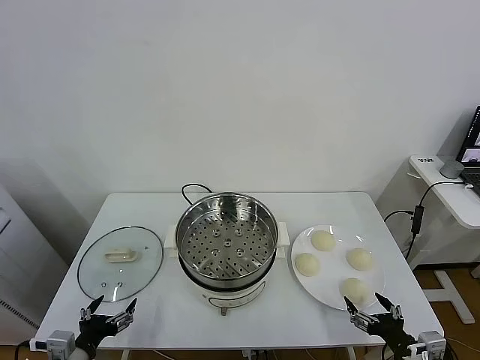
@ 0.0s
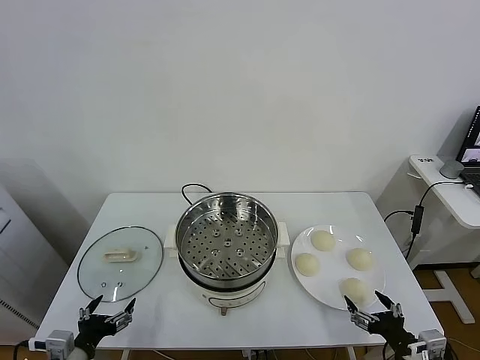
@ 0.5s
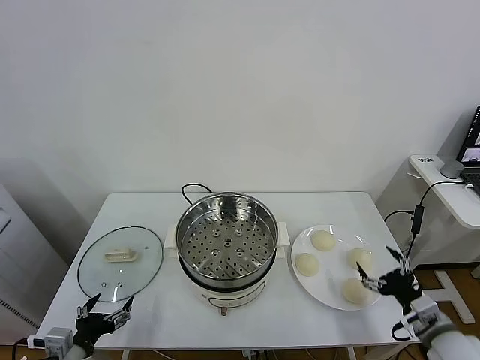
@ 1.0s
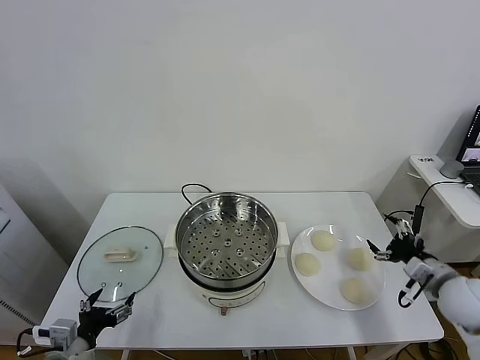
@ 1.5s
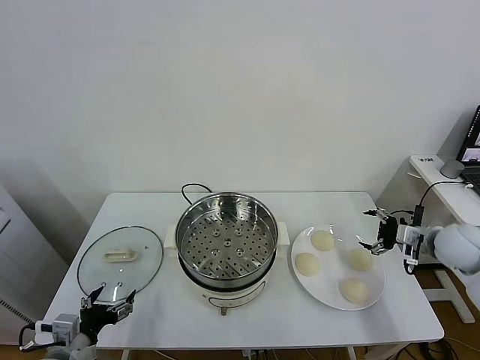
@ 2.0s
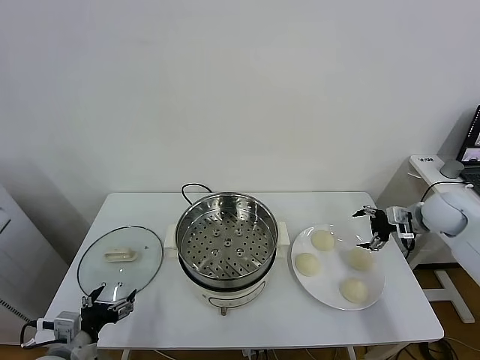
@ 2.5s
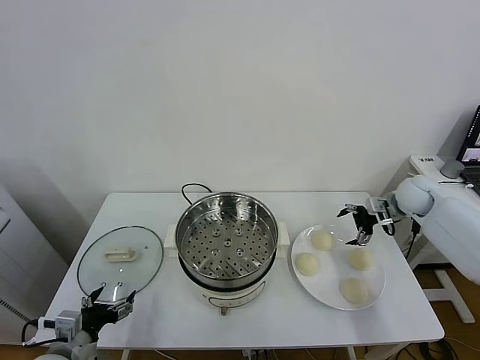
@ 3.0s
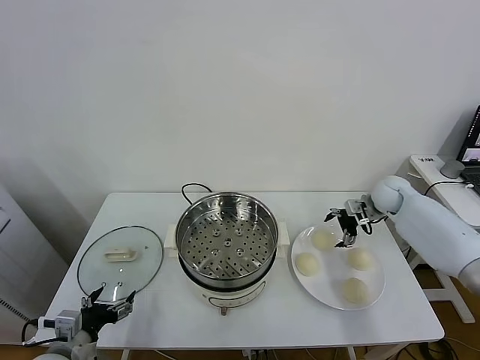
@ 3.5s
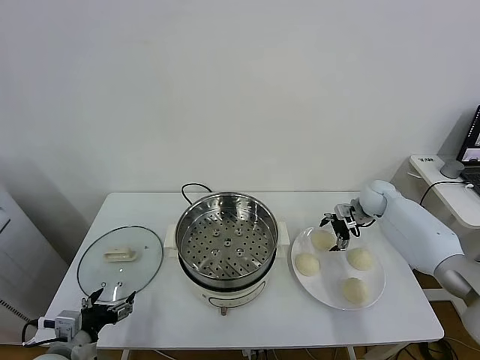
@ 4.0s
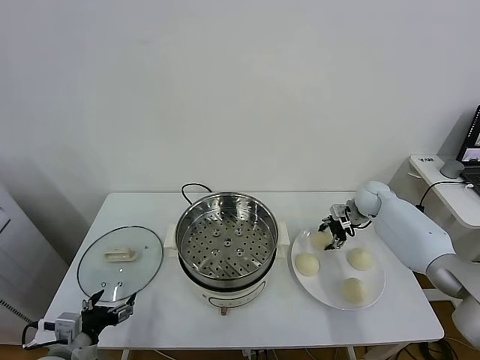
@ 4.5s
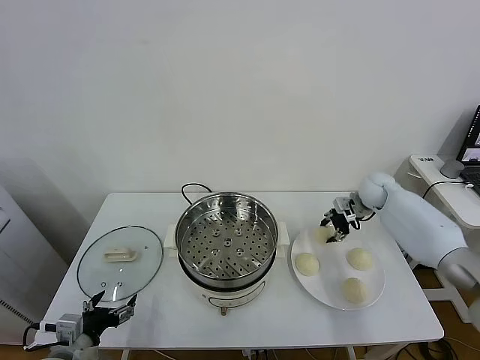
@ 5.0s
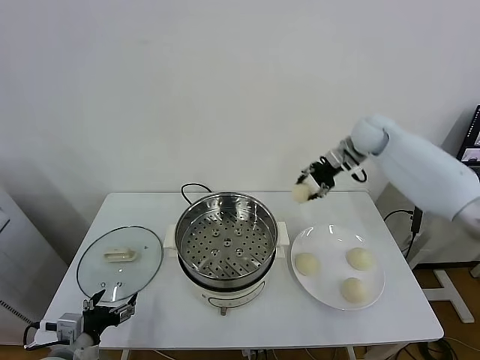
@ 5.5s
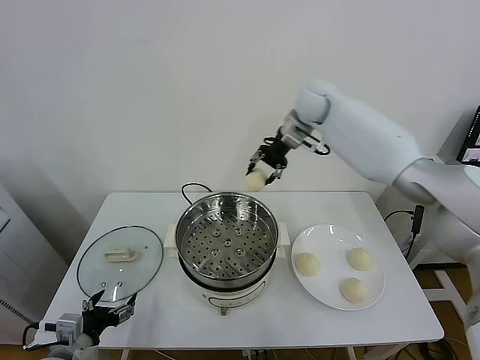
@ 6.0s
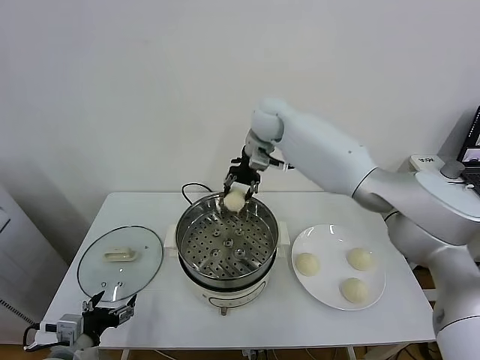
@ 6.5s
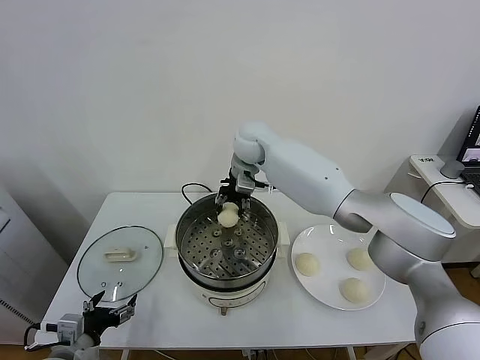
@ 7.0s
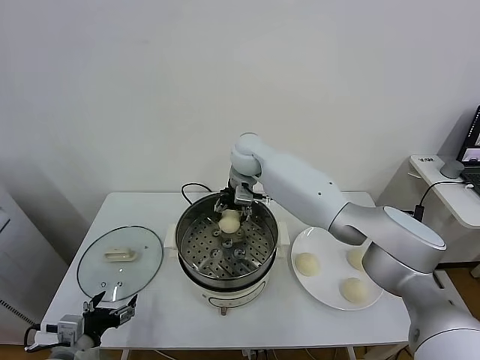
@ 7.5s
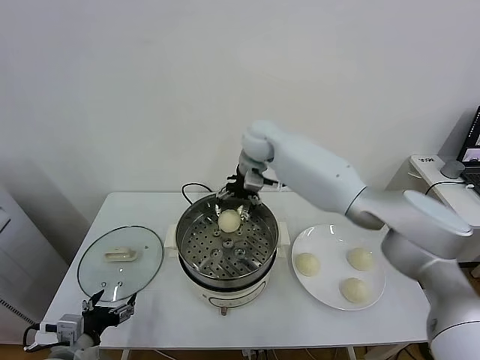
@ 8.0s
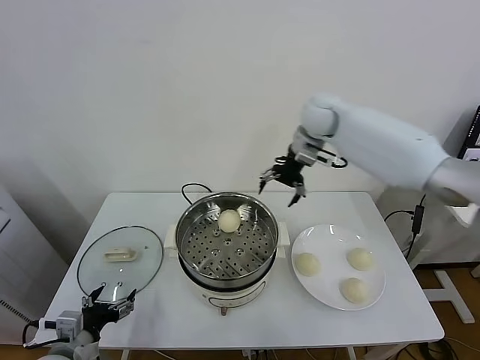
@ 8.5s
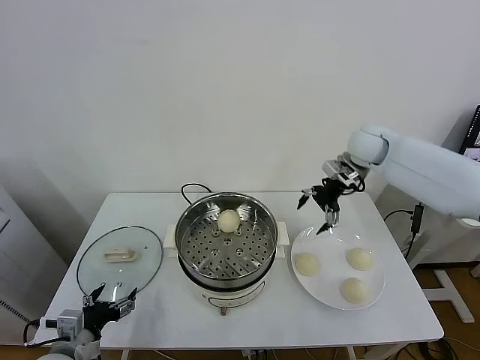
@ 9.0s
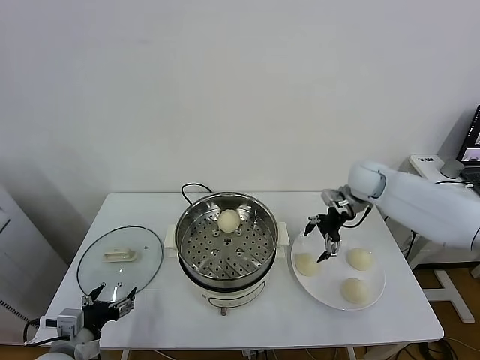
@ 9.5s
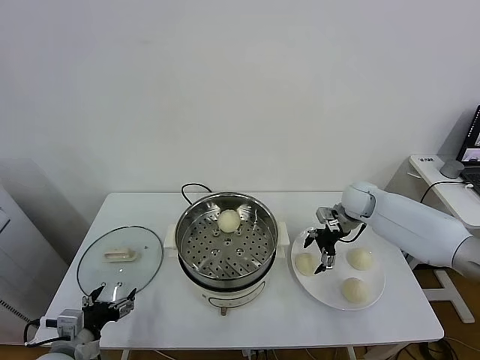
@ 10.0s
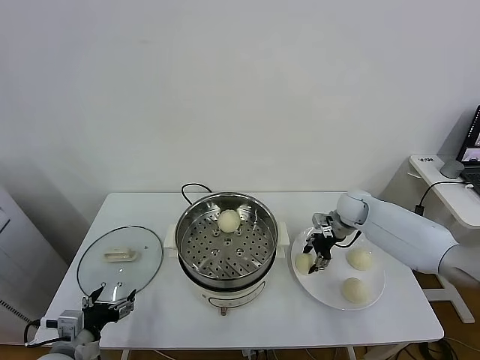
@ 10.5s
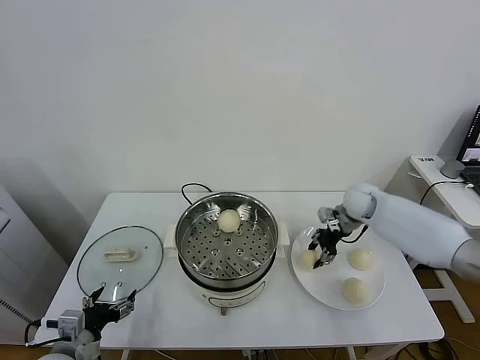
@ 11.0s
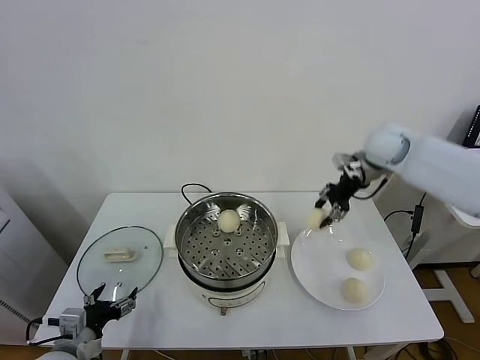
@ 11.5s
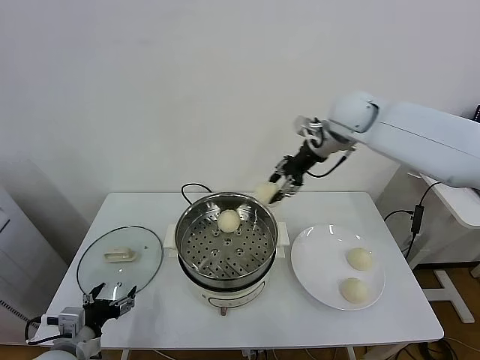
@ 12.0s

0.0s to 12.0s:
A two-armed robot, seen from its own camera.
Task of the whole recording: take steamed baozi put them in steamer.
Step, 0.0s to 4.5s: Grasp the baozi in the plate with right gripper.
Step, 5.0s to 7.5s: Place the baozi on the steamer with right gripper.
Step, 8.0s to 10.0s: Grasp the baozi in the plate with right gripper.
2.0s to 4.0s: The right gripper heads forward and to the left, covering about 20 cm.
4.0s to 6.0s: The right gripper heads upward and to the left, covering roughly 35 cm, and closes up.
6.0s to 8.0s: The right gripper shifts about 10 cm to the left and downward, and opens.
8.0s to 10.0s: The right gripper moves to the right and downward, some 30 cm.
10.0s to 12.0s: The right gripper moves upward and to the left, approximately 25 cm, and closes.

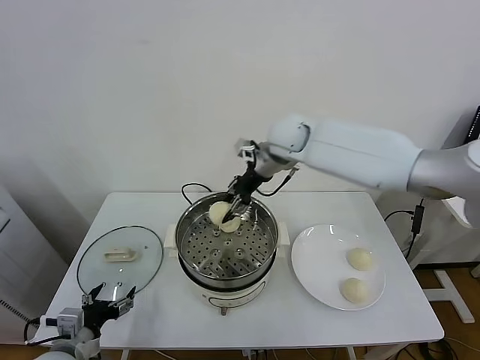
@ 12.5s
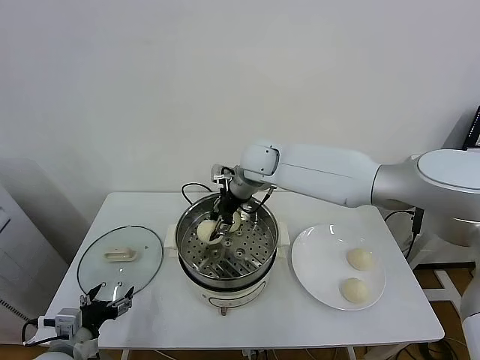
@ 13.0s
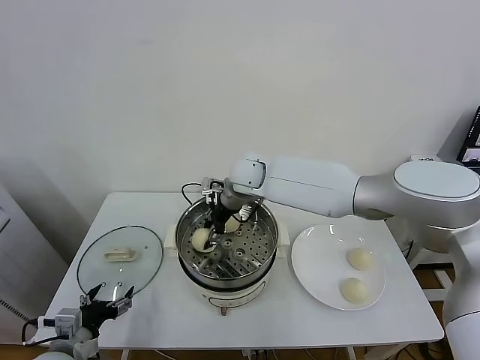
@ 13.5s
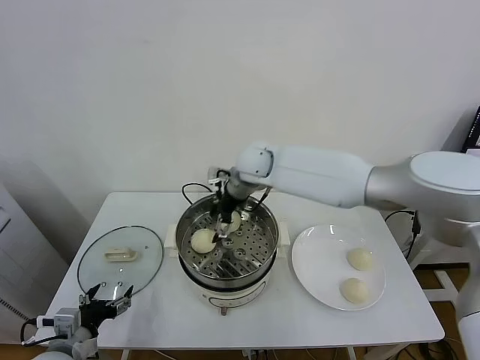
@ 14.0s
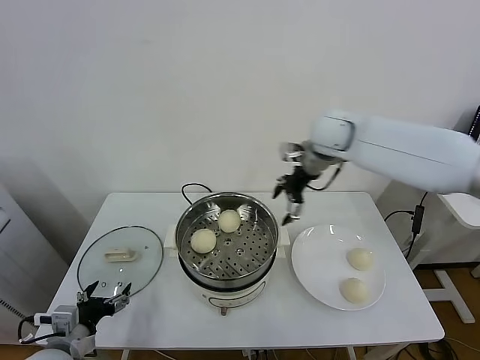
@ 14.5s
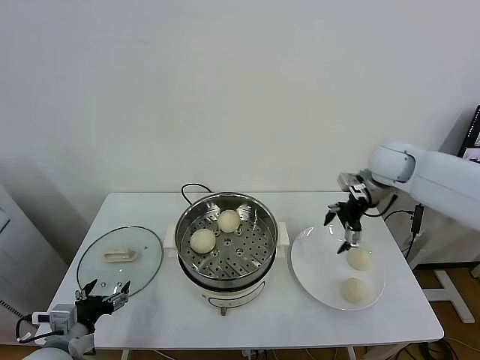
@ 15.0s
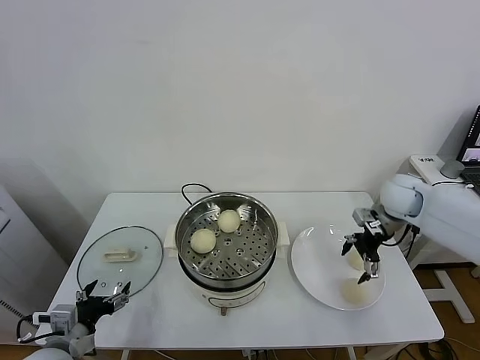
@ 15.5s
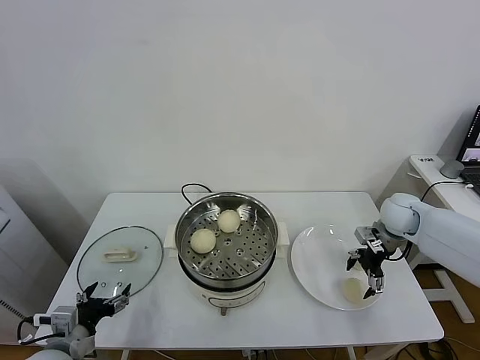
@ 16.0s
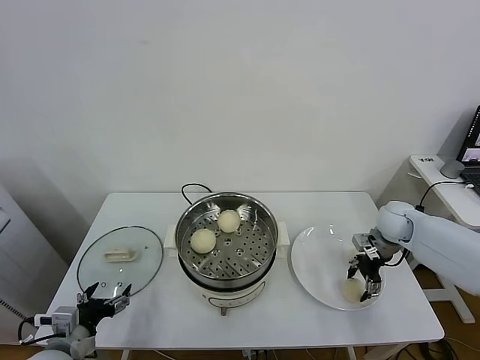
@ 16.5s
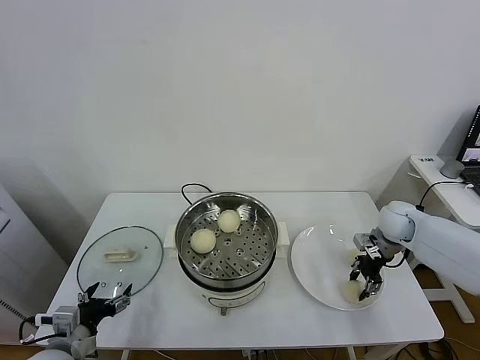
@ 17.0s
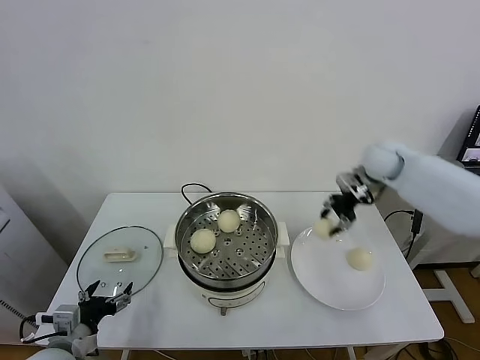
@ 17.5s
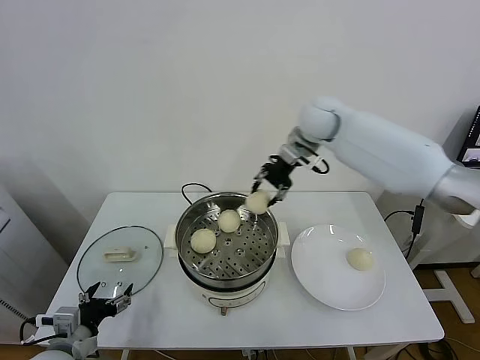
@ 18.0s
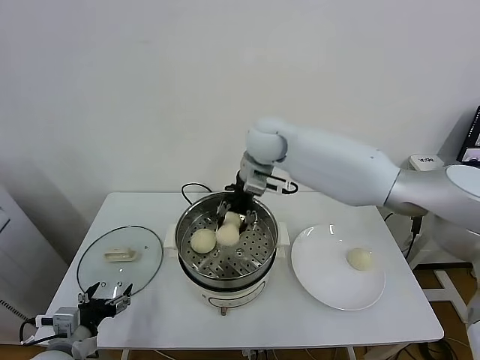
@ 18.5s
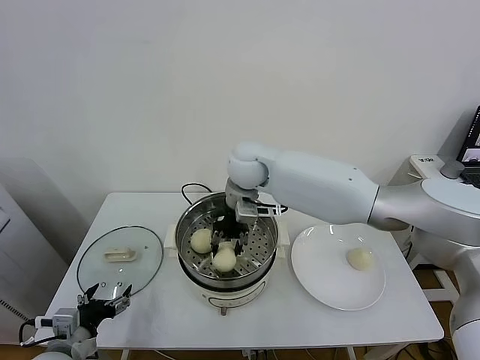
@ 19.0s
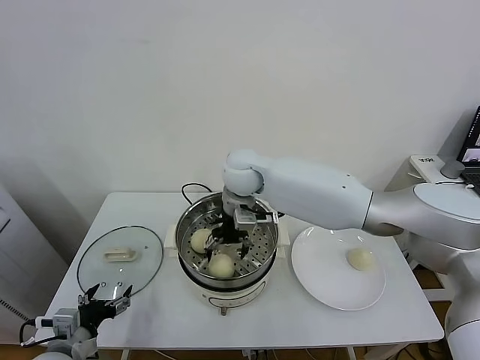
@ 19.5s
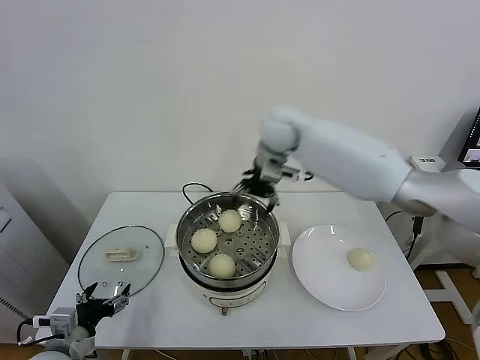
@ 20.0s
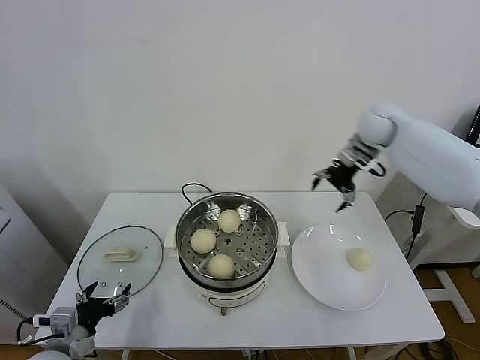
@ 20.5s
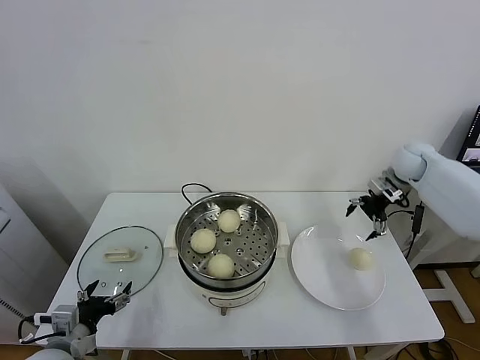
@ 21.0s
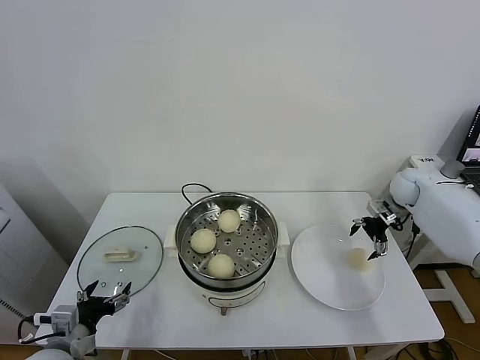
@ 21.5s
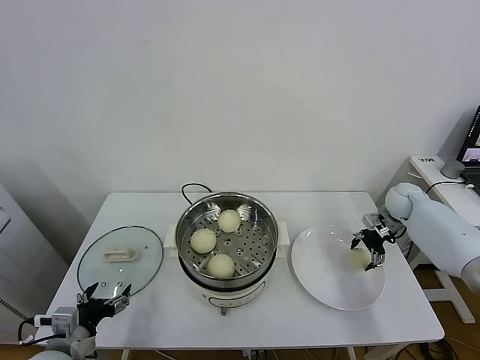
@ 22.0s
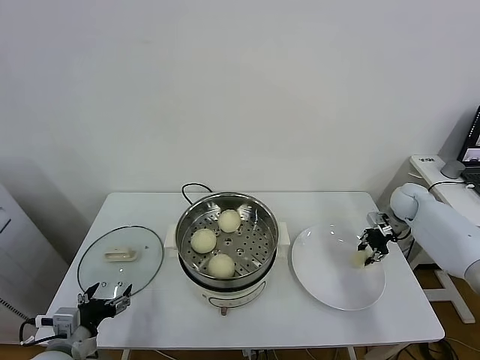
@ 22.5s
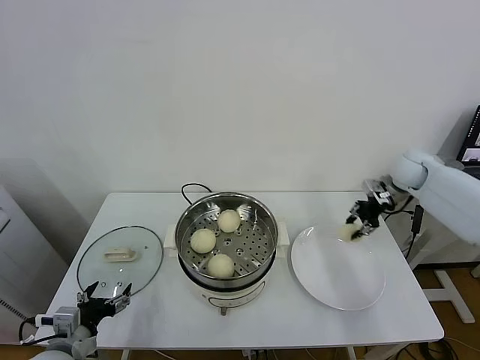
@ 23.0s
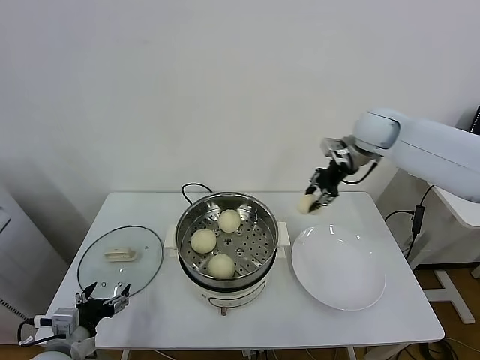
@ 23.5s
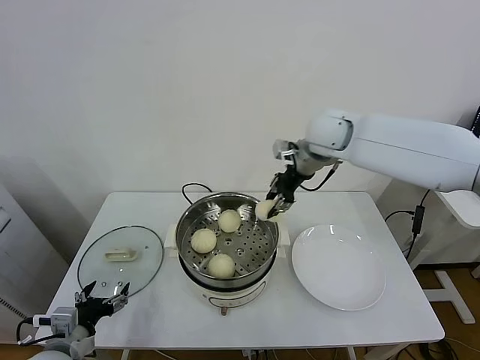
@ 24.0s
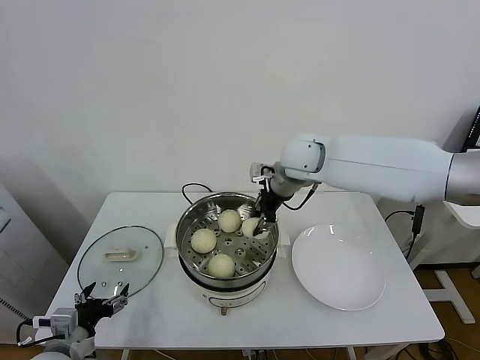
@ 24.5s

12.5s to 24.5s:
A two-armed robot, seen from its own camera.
Task of the whole recording: take steamed baozi put them in steamer.
Step, 14.0s to 16.5s: Grasp the baozi in the plate with right gripper.
Step, 17.0s to 19.5s: Place the baozi on the steamer with right gripper.
Step, 20.0s to 22.0s: Grasp the baozi in the plate with right gripper.
12.5s to 14.5s: The right gripper is displaced to the right by about 15 cm, and opens up.
14.5s to 16.5s: The right gripper goes some 30 cm downward and to the right, and closes its fingers.
16.5s to 18.5s: The right gripper shifts approximately 40 cm to the left and upward, and closes.
18.5s to 20.5s: The right gripper goes approximately 30 cm to the right, and opens.
20.5s to 22.5s: The right gripper heads downward and to the right, covering some 25 cm, and closes.
22.5s to 24.5s: The right gripper is displaced to the left and upward by roughly 40 cm.

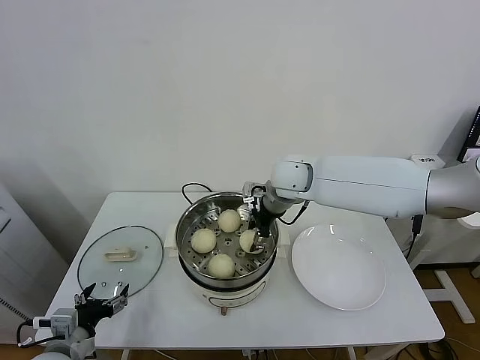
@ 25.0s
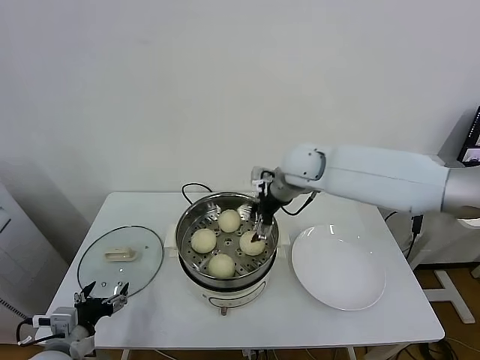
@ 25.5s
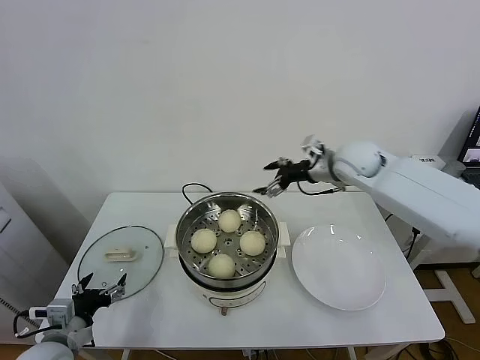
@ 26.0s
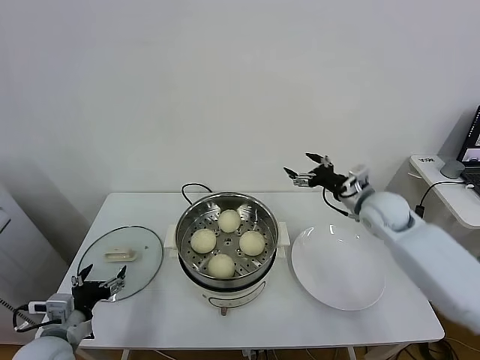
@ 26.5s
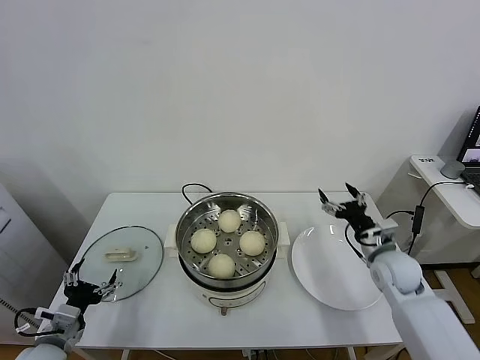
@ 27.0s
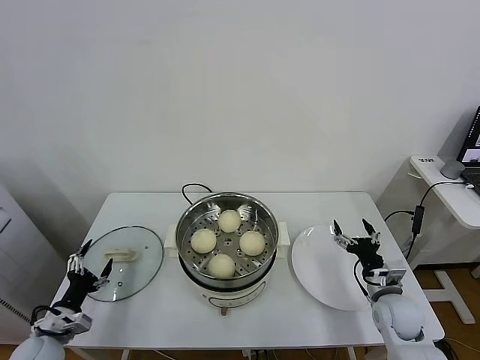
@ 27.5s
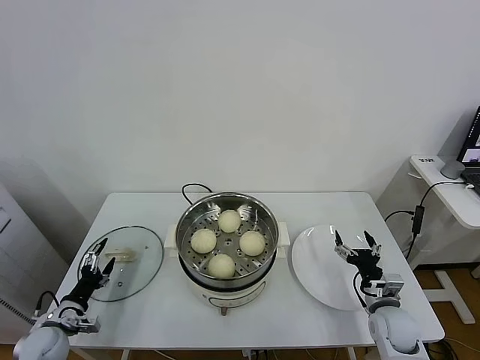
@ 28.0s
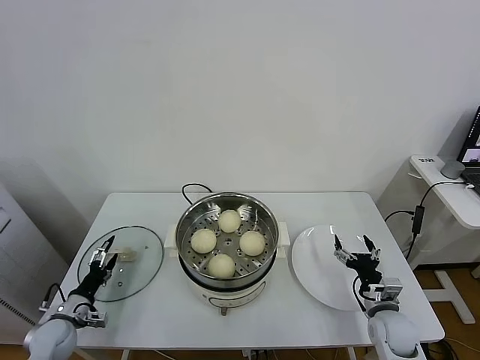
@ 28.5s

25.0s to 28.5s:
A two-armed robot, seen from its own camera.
Task of the whole recording: take steamed baozi put them in steamer.
25.0s to 27.0s: The right gripper is displaced to the right, downward and backward by some 30 cm, and opens.
27.0s to 28.5s: The right gripper moves downward and backward, approximately 15 cm. Meanwhile the left gripper is displaced downward, forward and to the left by approximately 15 cm.
